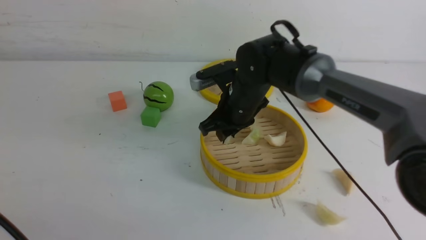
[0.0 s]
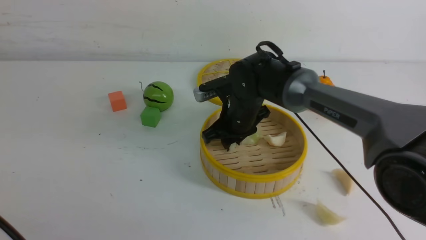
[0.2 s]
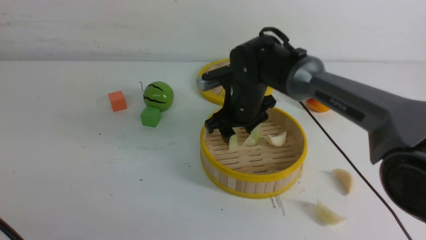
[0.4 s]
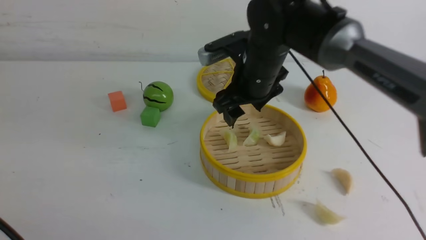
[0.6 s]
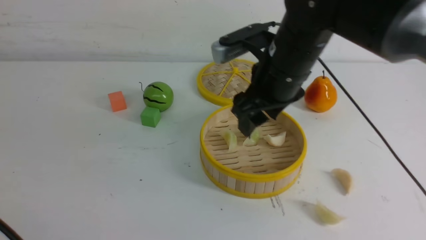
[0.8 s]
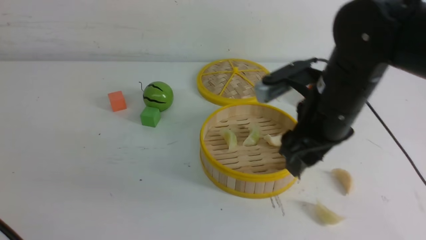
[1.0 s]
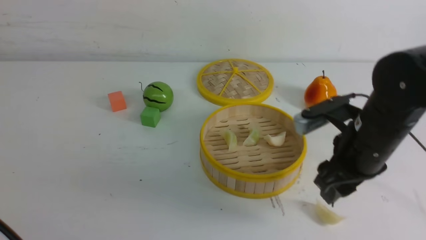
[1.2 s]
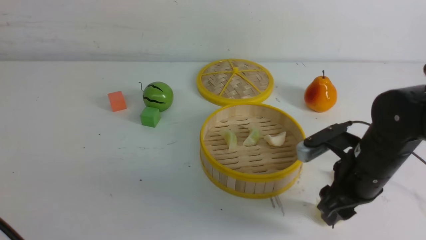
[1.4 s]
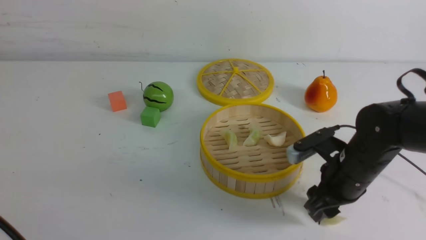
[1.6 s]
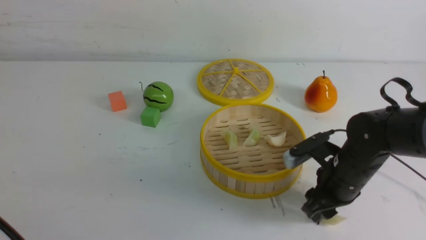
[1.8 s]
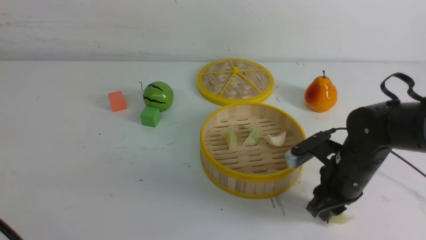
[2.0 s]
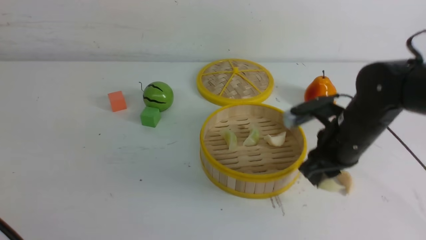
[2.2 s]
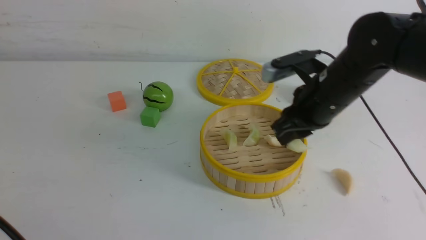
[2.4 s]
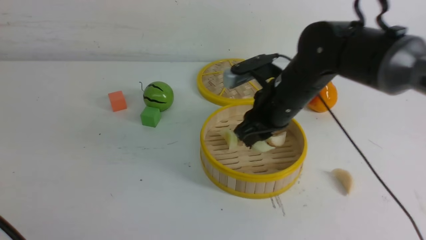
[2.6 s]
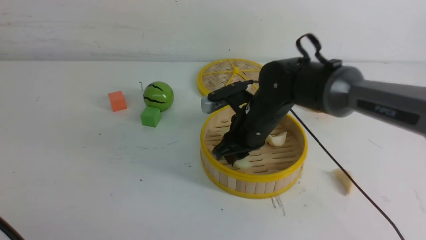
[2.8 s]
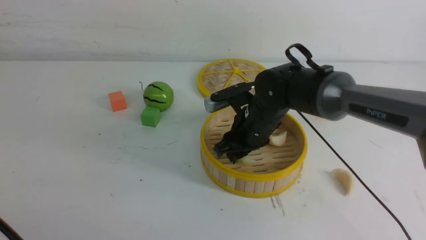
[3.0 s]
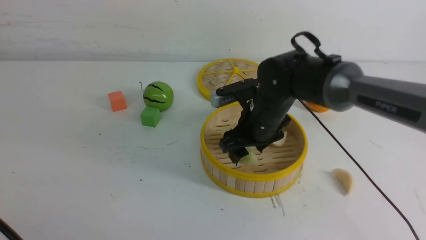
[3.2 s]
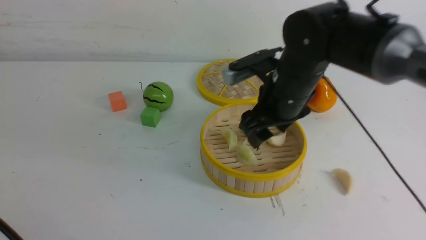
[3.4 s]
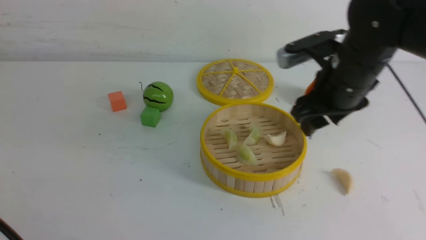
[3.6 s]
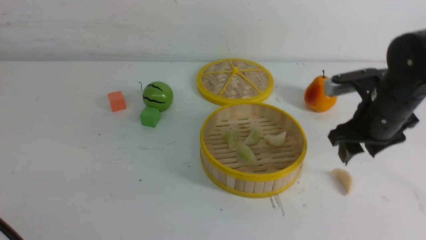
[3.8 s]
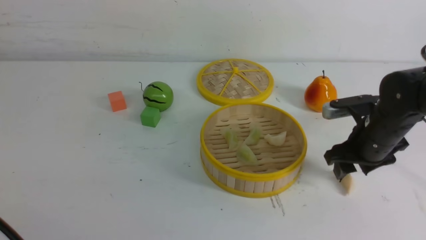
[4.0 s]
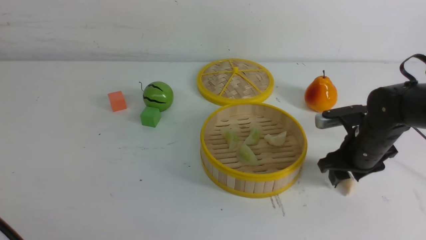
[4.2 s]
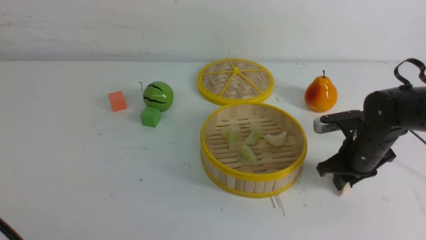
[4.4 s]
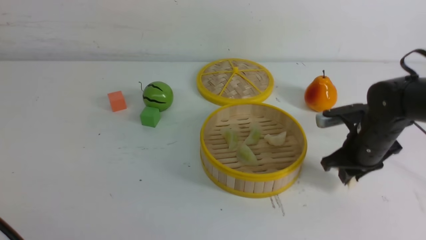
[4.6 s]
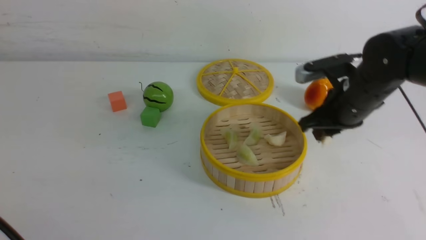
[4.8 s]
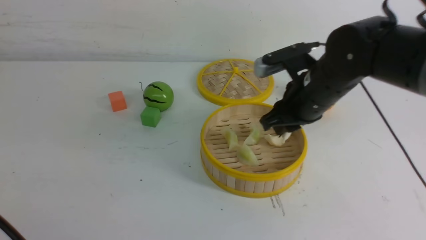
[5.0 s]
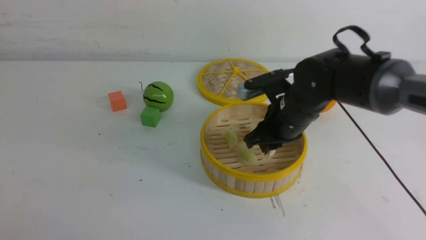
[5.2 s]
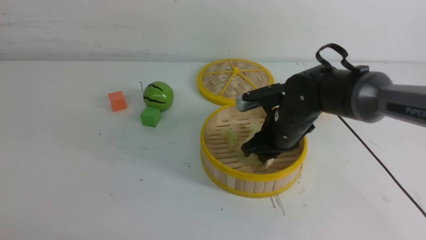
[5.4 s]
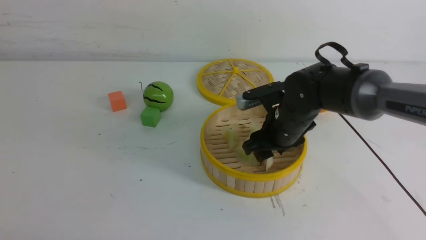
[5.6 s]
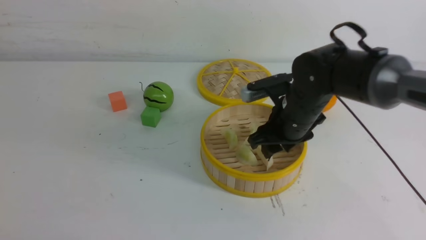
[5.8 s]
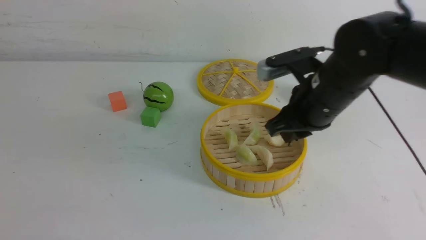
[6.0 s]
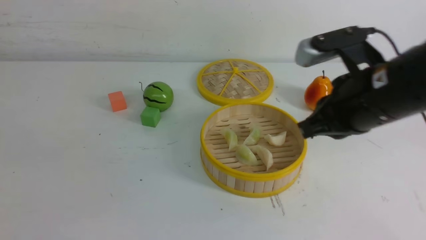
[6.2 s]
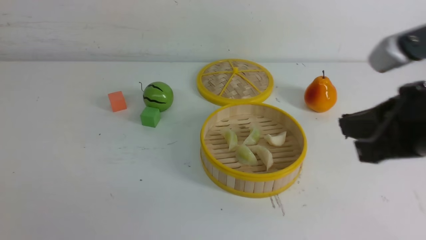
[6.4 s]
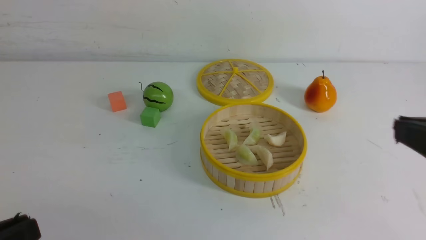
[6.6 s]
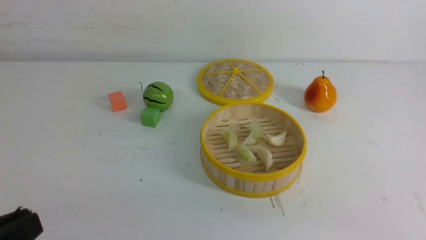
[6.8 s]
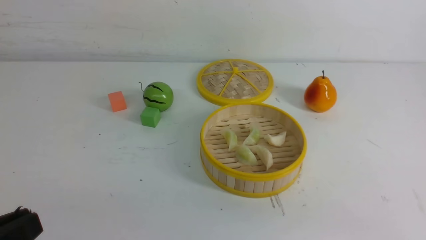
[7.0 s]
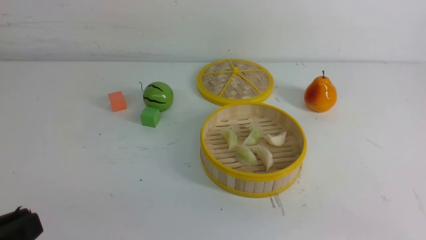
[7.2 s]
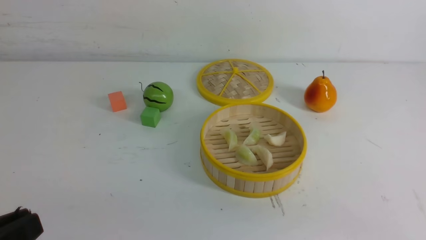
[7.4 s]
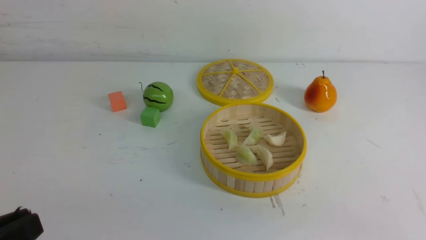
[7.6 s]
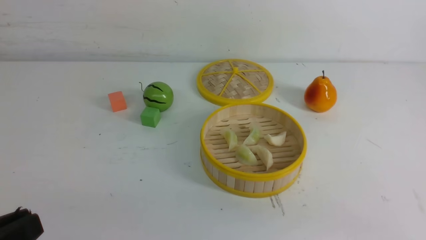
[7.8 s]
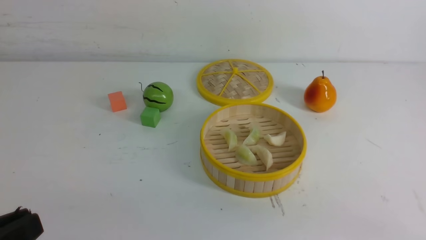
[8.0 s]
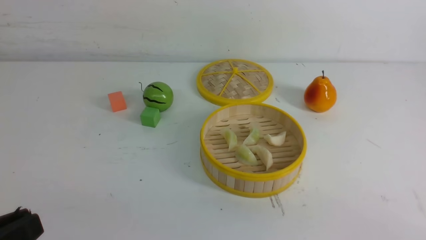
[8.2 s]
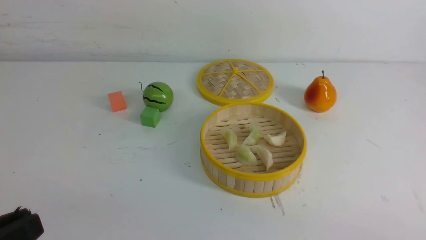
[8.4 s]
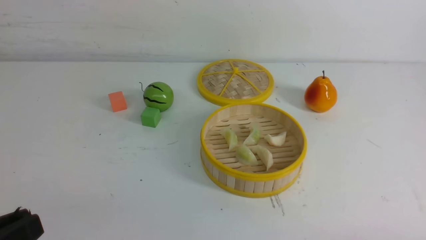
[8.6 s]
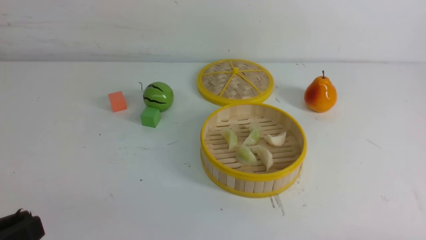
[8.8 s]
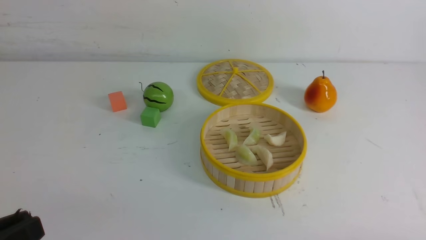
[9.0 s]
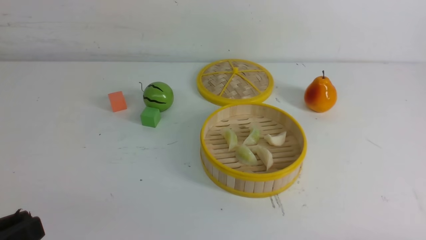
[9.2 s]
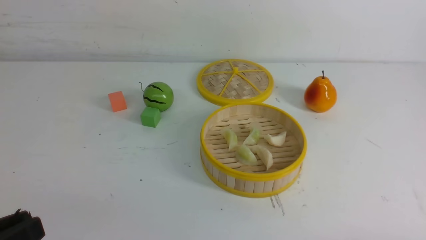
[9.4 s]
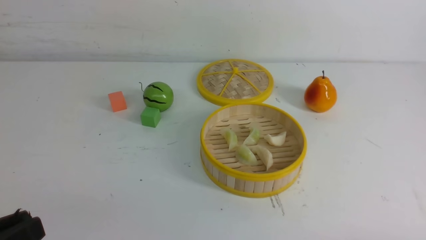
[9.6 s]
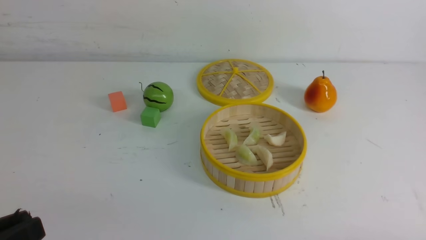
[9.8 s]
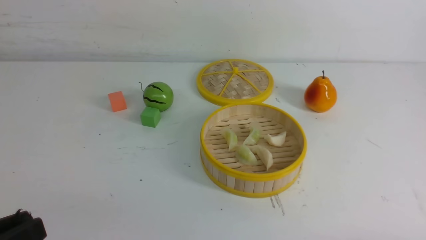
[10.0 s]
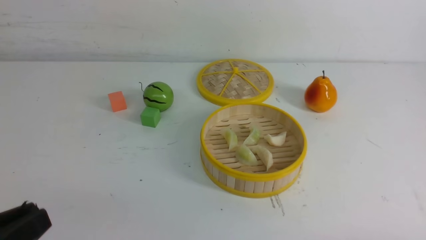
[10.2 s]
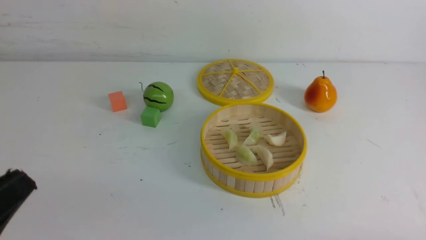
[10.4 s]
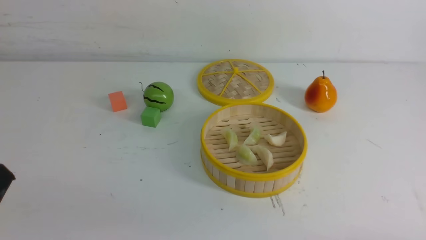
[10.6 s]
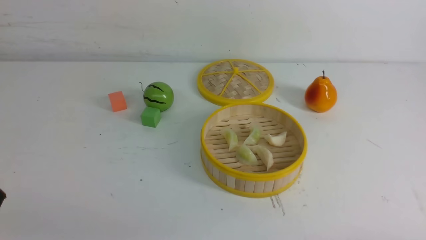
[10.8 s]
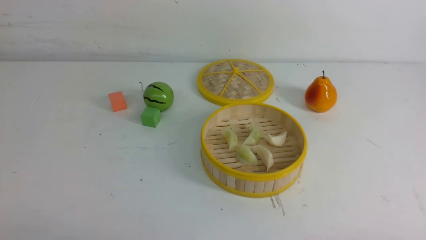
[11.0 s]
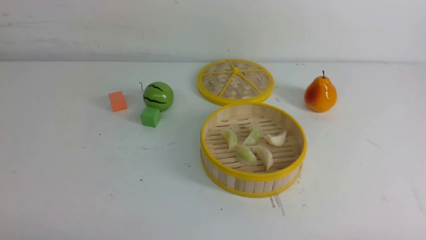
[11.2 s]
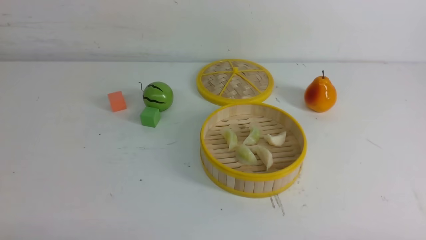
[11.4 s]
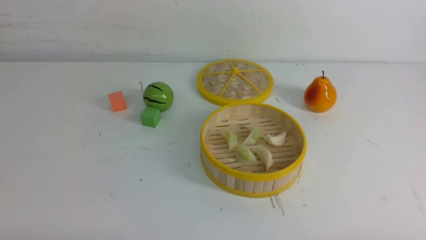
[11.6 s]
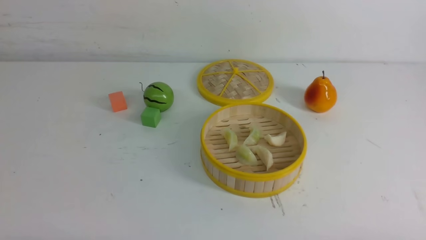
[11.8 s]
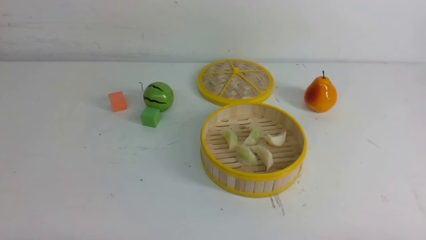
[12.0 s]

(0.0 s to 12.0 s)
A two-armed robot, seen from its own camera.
Task of the whole recording: put the dumplings into the steamer on the white table.
Step, 0.6 s - 2.0 s: use the right arm to grab a dumpling.
Step, 2.2 s - 3.2 s: use the right arm to put the dumpling into the steamer.
Step, 3.4 s - 4.4 s: use the right arm to grab a dumpling.
Step, 4.8 s - 5.6 s: use the right arm to put the dumpling into the steamer.
0.0 s - 1.6 s: The right gripper goes some 20 cm to the right and backward.
1.6 s - 3.0 s: The right gripper travels to the left and forward by roughly 15 cm.
3.0 s - 4.4 s: The right gripper moves to the right, about 20 cm.
4.4 s - 6.0 s: The left gripper goes about 5 cm backward; the right gripper moves up and down over some 15 cm, changing direction 2 times.
6.0 s - 7.6 s: The left gripper moves roughly 5 cm. Meanwhile the right gripper moves backward and to the right, approximately 30 cm.
9.0 s - 10.4 s: The grippers move only a little.
10.4 s - 12.0 s: The left gripper travels downward by roughly 10 cm.

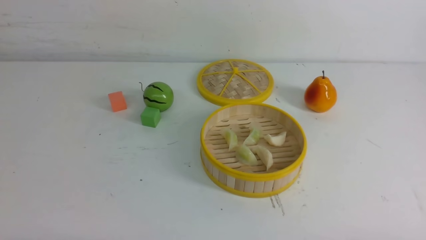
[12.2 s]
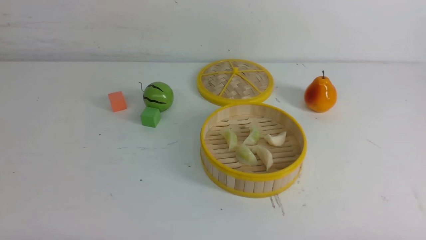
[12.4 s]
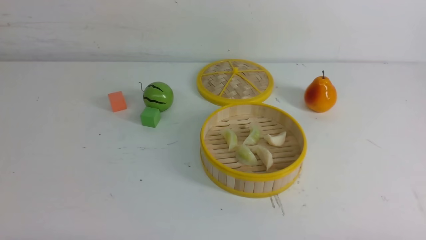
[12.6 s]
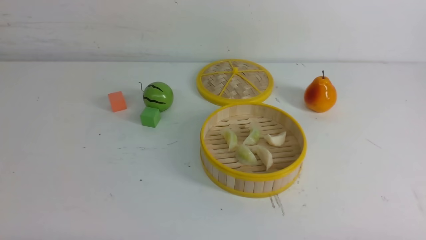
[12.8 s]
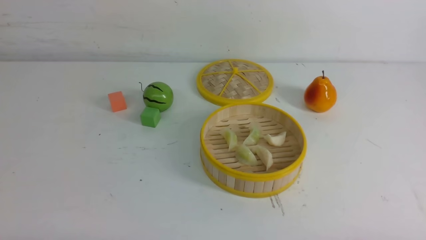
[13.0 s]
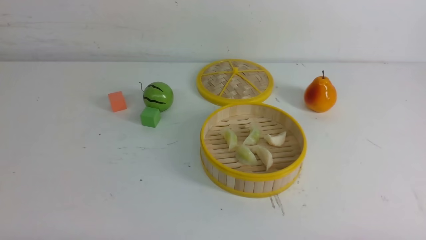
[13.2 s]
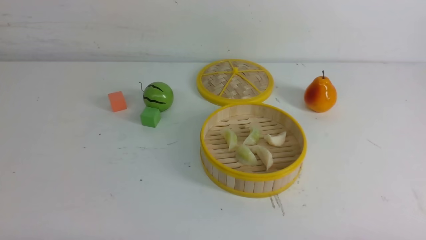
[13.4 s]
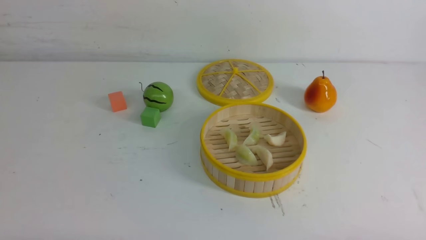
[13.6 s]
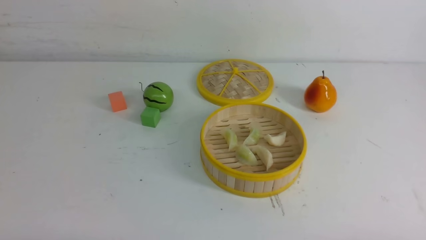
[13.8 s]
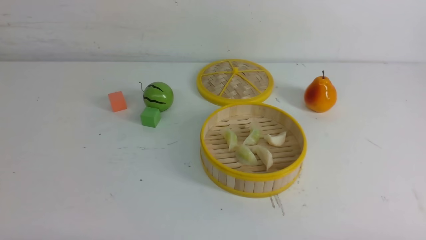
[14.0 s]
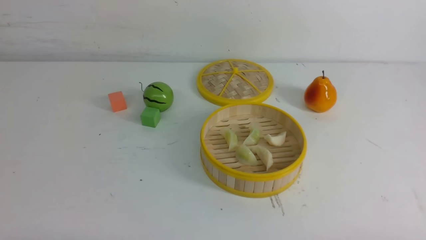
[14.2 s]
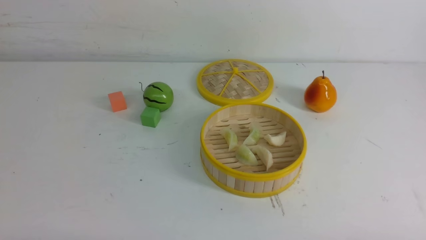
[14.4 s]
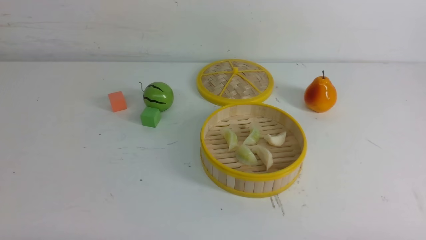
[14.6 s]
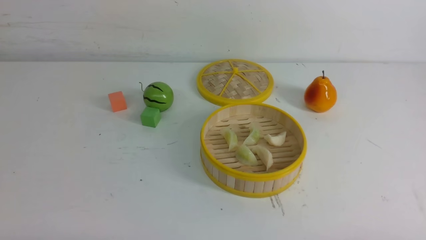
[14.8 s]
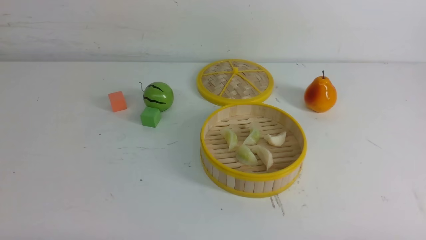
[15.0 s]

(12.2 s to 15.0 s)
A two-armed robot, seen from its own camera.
Task of the whole recording: put the dumplings into the steamer on the white table.
12.2 s - 15.0 s: Both grippers stay about where they are.
